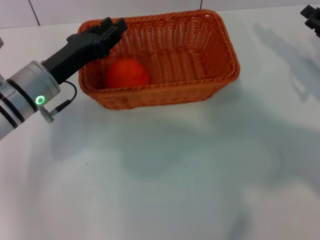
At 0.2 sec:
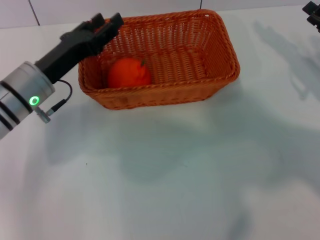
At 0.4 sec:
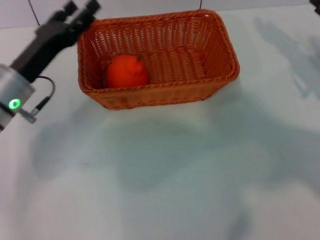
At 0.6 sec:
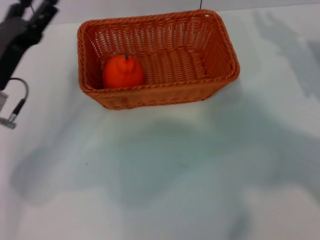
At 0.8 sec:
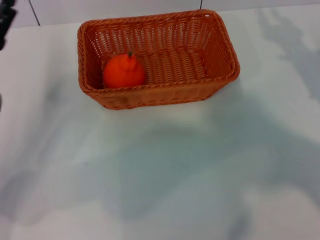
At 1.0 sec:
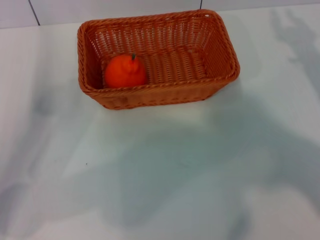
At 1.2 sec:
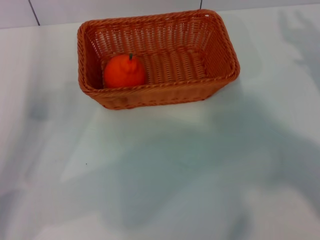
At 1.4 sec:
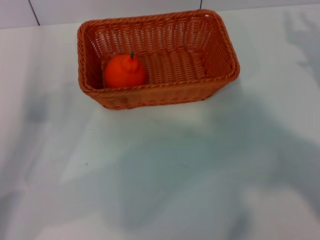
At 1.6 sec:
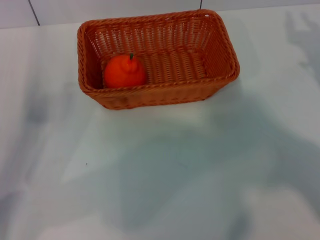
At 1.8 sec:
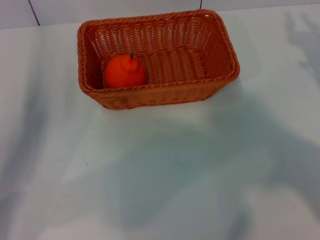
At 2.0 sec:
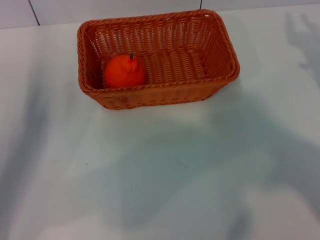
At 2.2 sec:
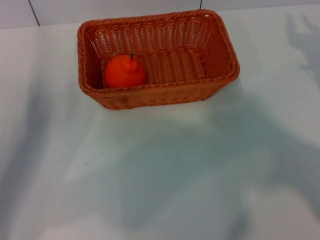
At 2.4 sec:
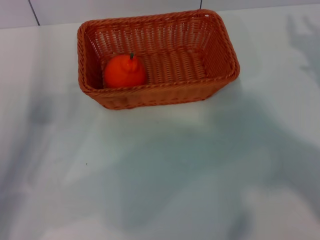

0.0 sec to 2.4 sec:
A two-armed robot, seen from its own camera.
Task of the whole recording: the right gripper pick up the yellow basket and place it horizontally in the middle of the table, the left gripper pick up the orange and place it into the yellow basket.
0.0 sec to 1.2 sec: The left gripper moves to the left and backward, approximately 10 cm, and opens its fingers.
1.2 sec to 2.4 sec: The grippers stay close to where they were, moving slightly.
